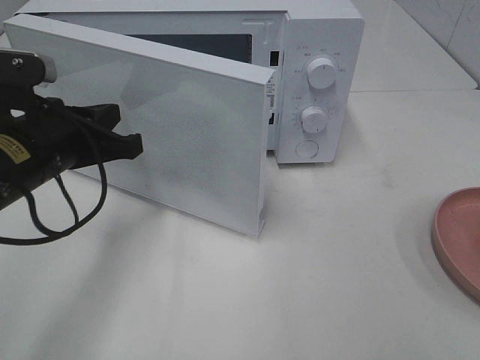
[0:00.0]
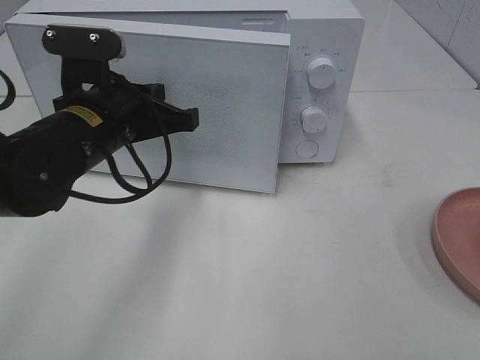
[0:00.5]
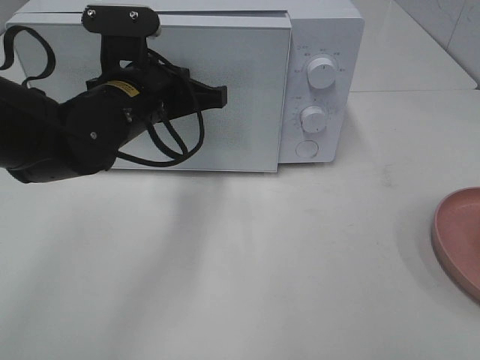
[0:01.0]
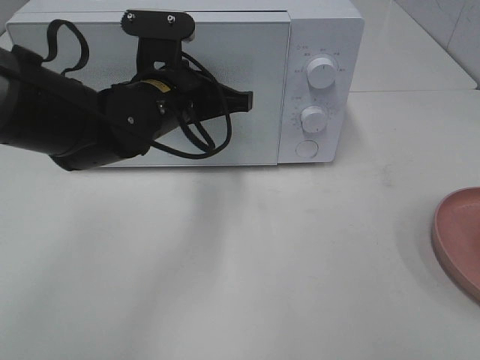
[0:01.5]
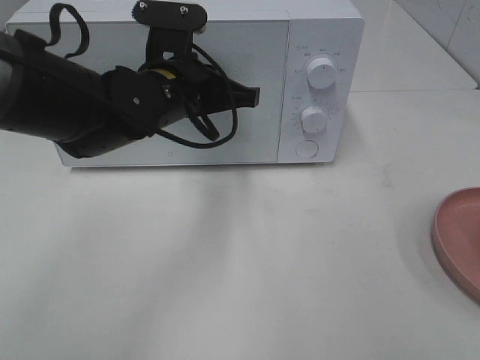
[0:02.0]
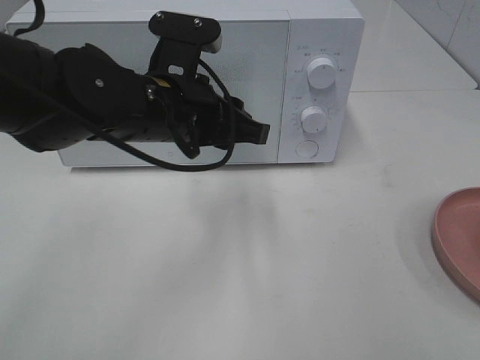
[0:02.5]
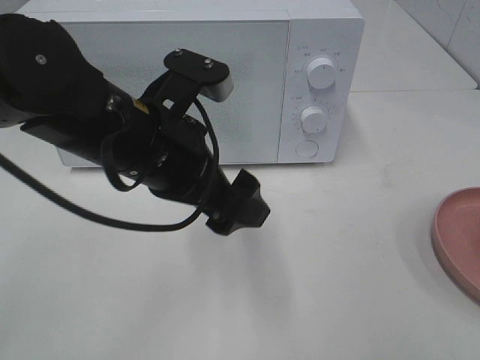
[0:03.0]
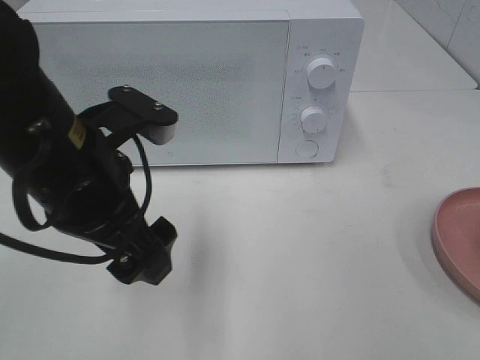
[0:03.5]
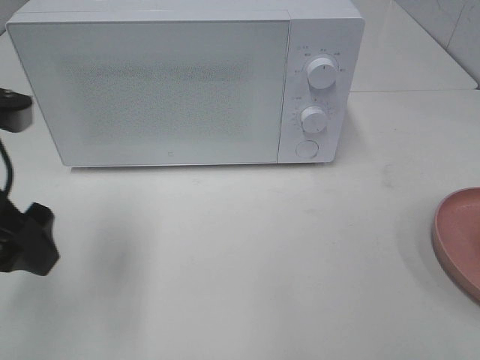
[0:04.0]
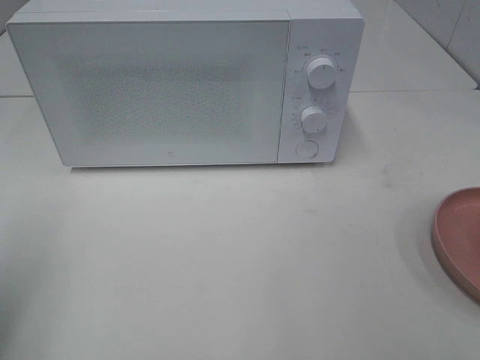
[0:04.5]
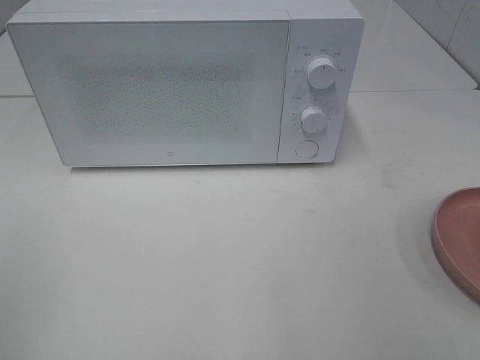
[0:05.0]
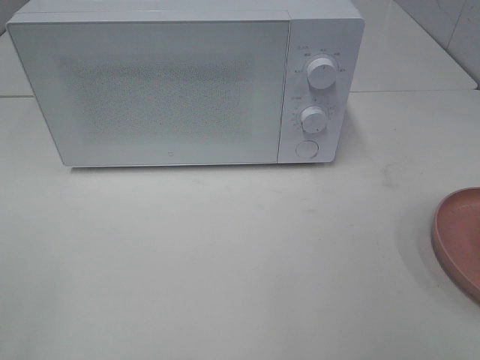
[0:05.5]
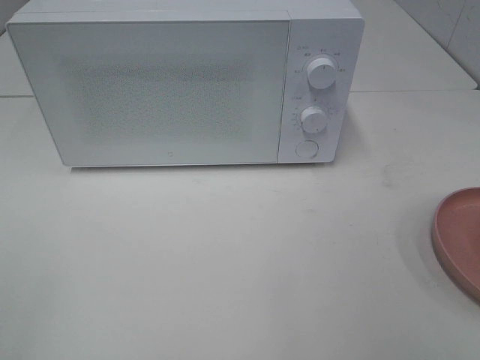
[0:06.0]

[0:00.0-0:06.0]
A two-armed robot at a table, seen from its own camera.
Task of the whole recording: Heat the burger.
Step, 0:00.0 to 0:02.5: Left hand: close the microwave door.
0:00.0 to 0:02.0: The left gripper travels to the right and forward by some 15 cm.
0:02.0 to 0:04.0: The left gripper shifts approximately 20 cm to the left and backward, and opens.
0:04.0 to 0:06.0: The left gripper goes roughly 25 cm backward and to the left.

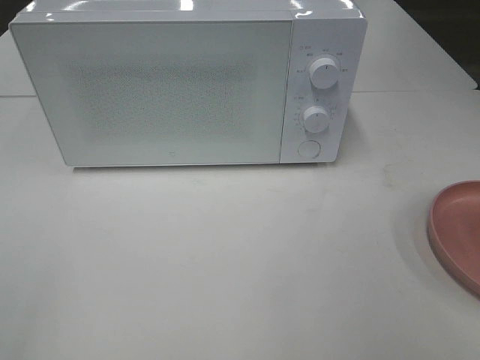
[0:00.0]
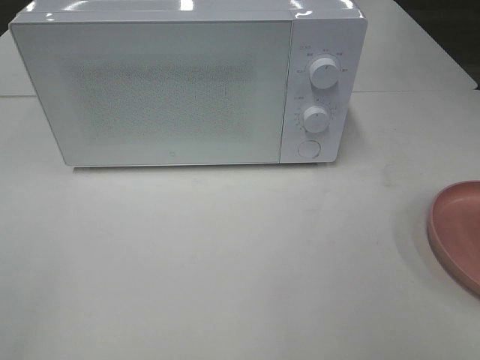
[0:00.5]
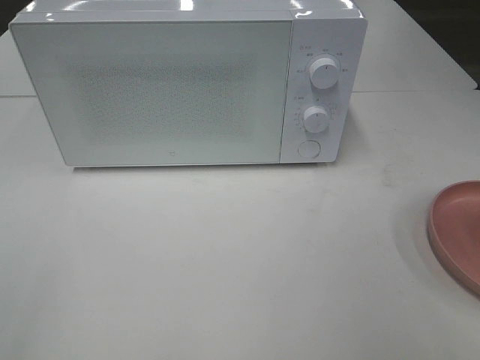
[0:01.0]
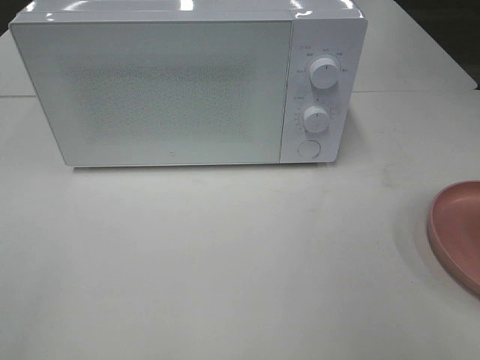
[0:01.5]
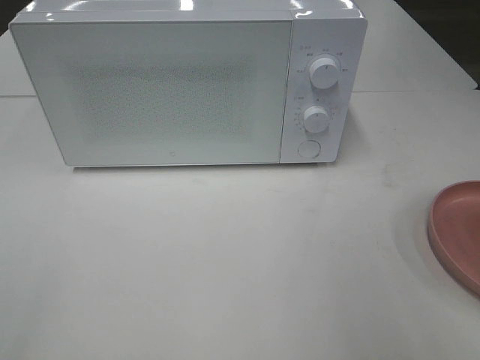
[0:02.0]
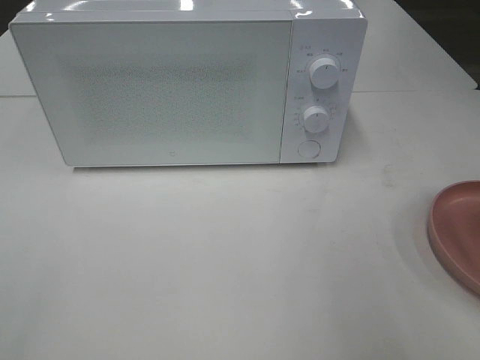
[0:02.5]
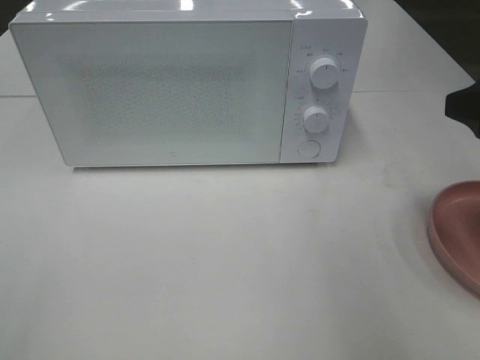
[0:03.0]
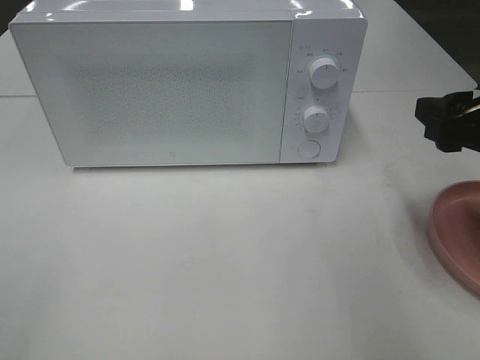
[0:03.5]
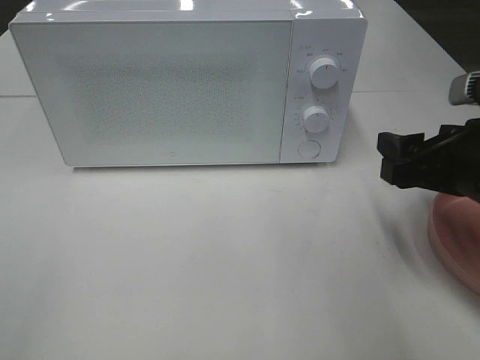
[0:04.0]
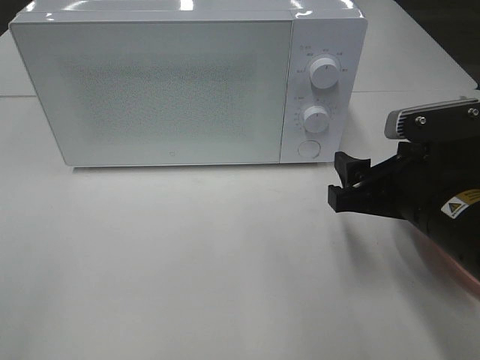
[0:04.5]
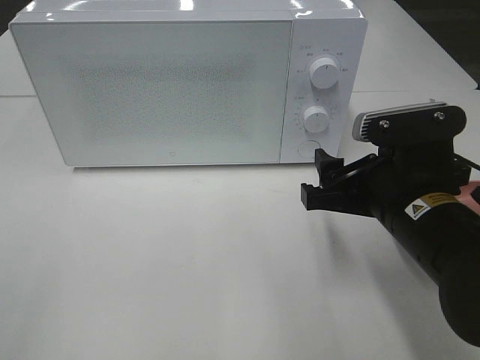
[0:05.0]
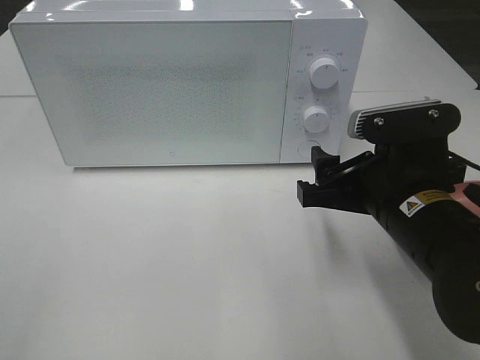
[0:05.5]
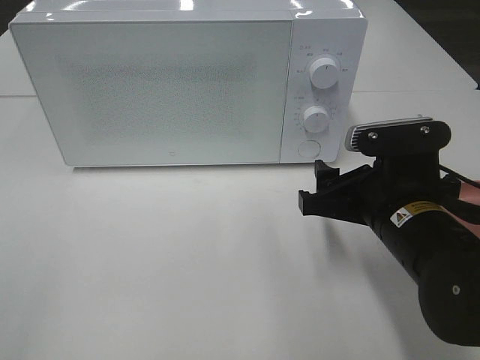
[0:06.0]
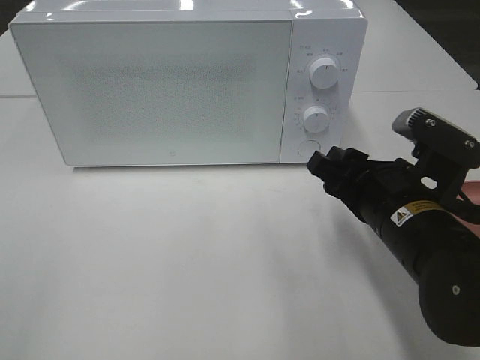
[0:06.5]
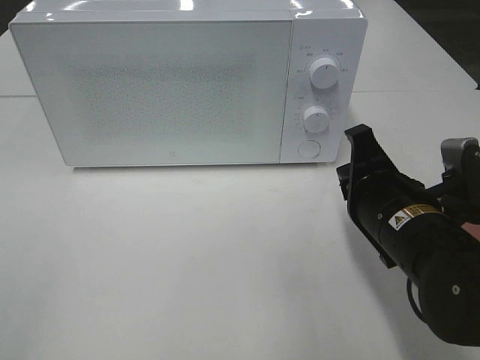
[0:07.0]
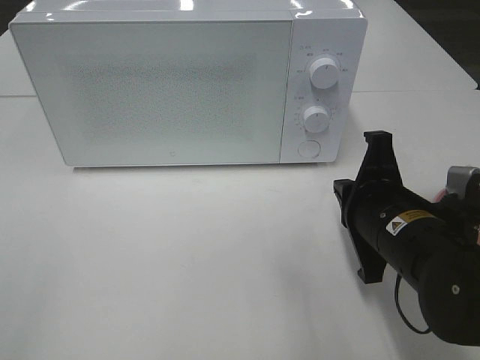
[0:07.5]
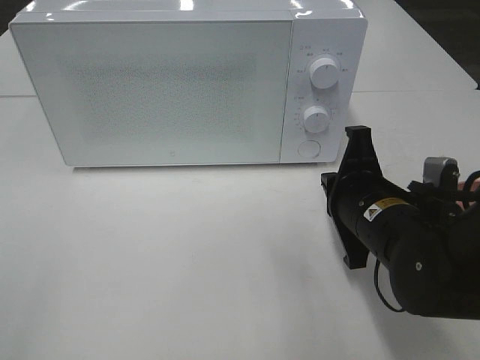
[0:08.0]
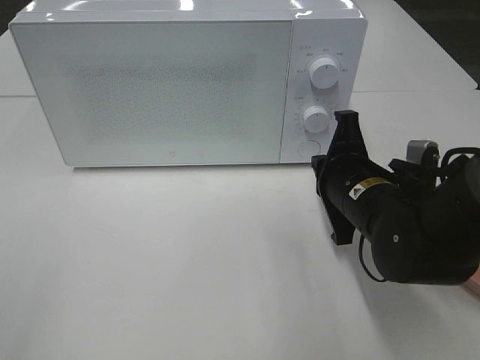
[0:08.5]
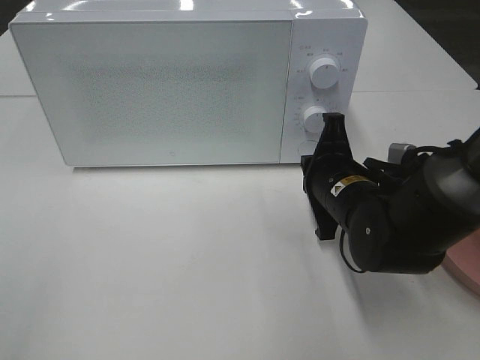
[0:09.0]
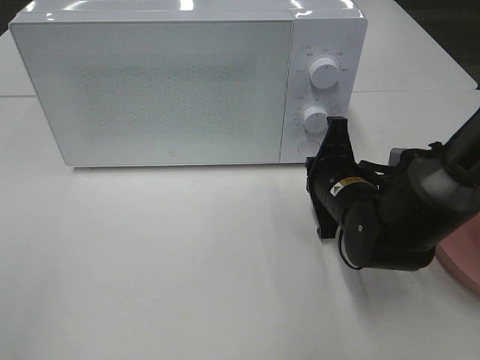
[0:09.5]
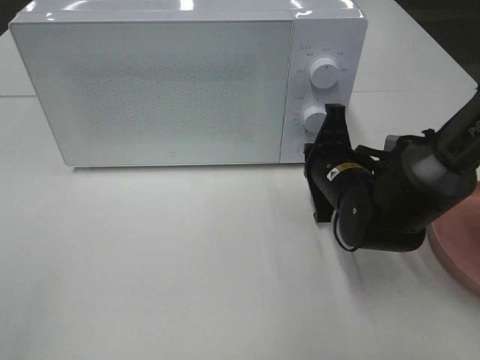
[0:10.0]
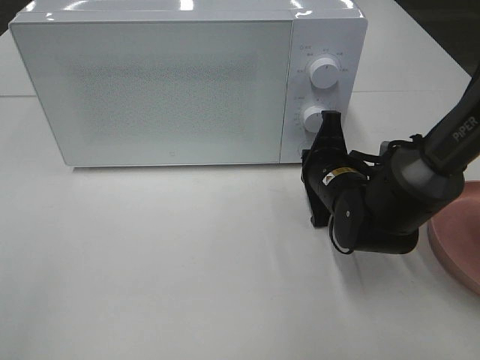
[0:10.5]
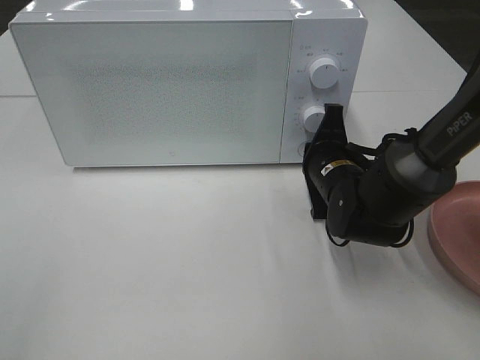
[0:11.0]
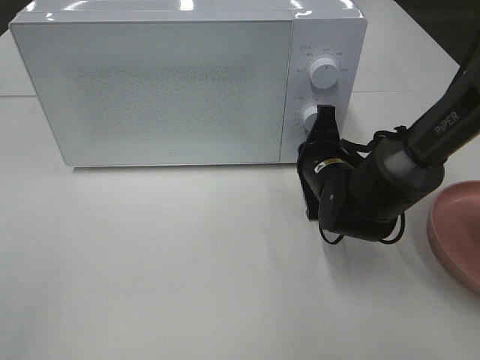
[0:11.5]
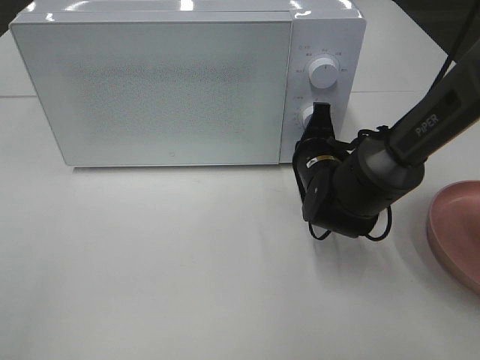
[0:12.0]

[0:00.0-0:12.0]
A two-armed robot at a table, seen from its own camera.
Task of the whole recording: Heat the burger.
0:02.0 to 0:04.0: The right gripper moves downward and forward, some 15 cm.
0:04.0 to 0:06.0: The right gripper travels to the left by about 5 cm.
0:06.0 to 0:08.0: The right gripper closes its fingers.
0:08.0 to 0:10.0: The right gripper shifts approximately 10 cm forward.
0:10.0 to 0:12.0: The grippers stay close to where they were, moving slightly.

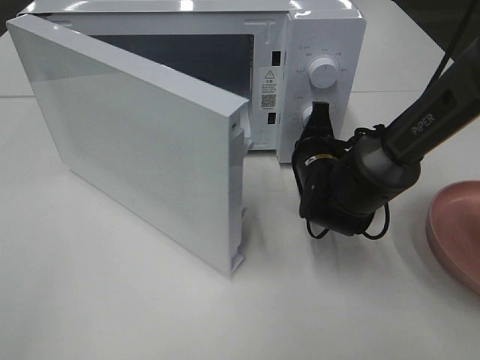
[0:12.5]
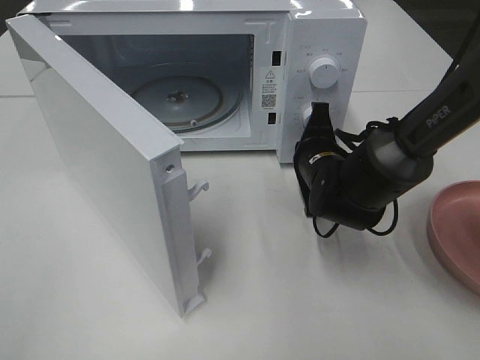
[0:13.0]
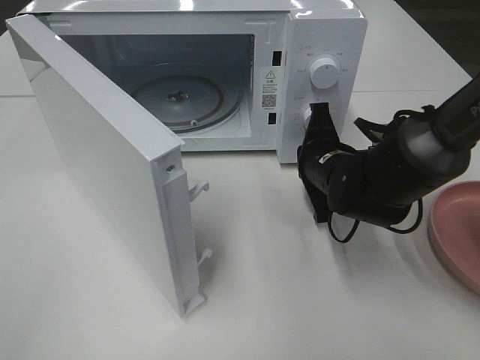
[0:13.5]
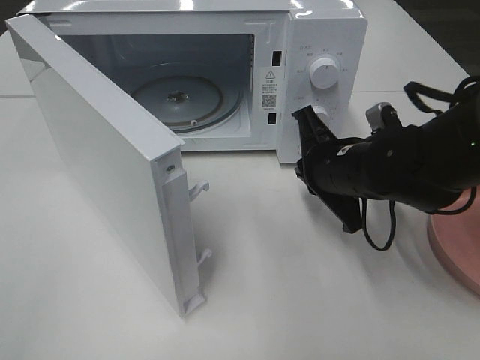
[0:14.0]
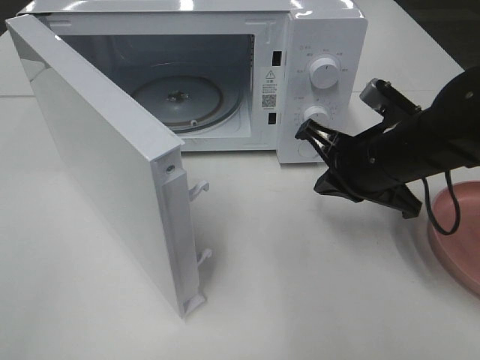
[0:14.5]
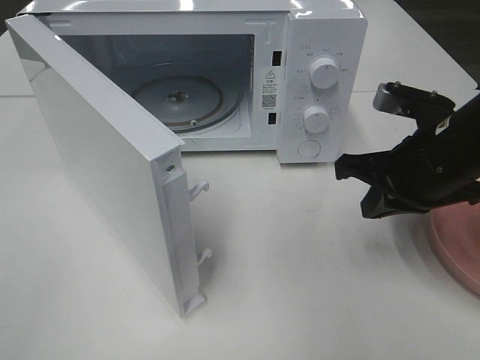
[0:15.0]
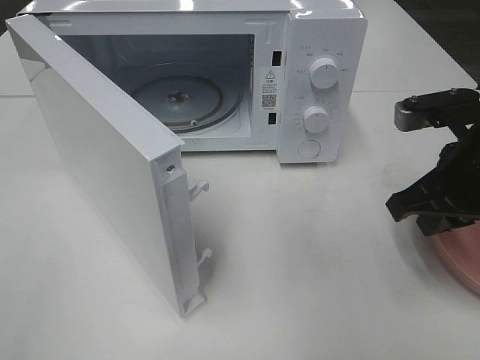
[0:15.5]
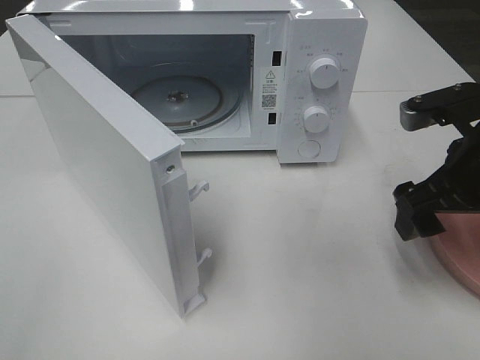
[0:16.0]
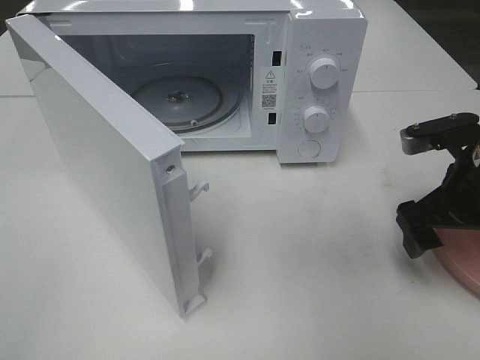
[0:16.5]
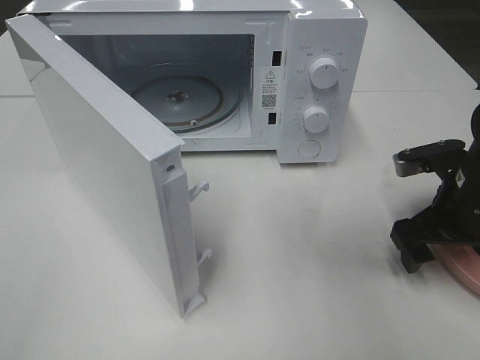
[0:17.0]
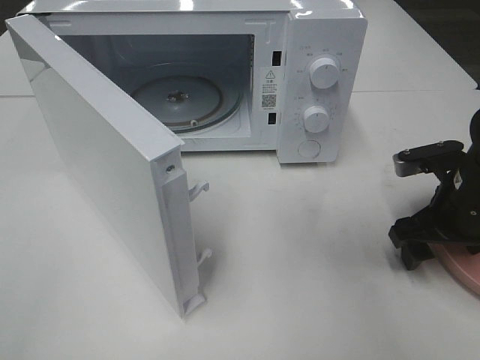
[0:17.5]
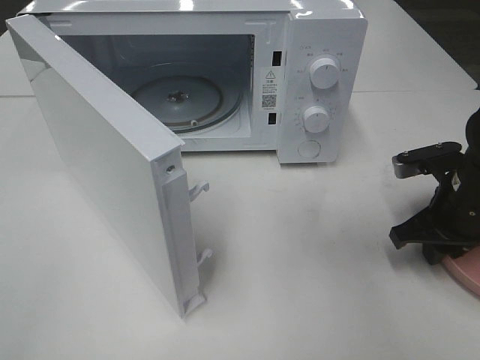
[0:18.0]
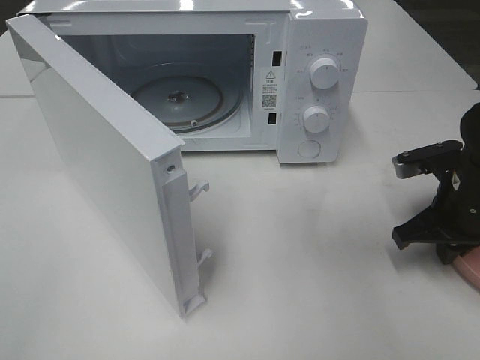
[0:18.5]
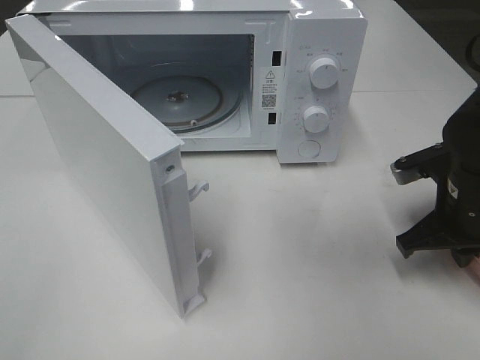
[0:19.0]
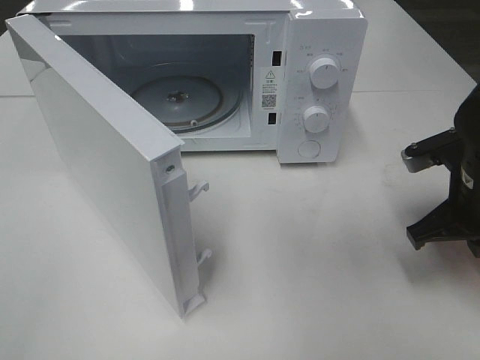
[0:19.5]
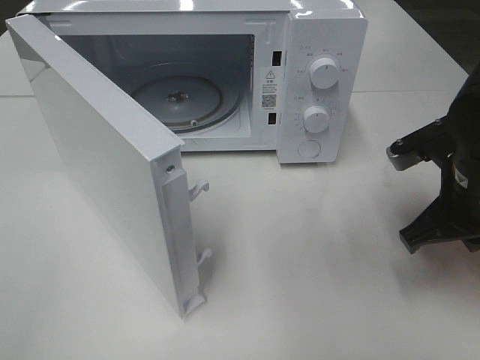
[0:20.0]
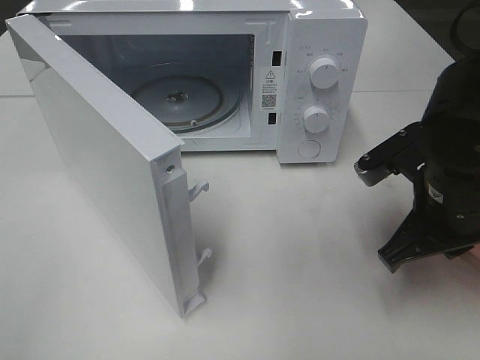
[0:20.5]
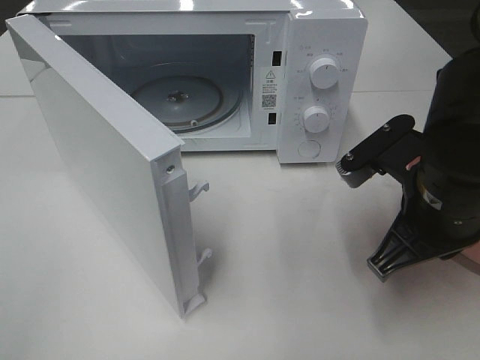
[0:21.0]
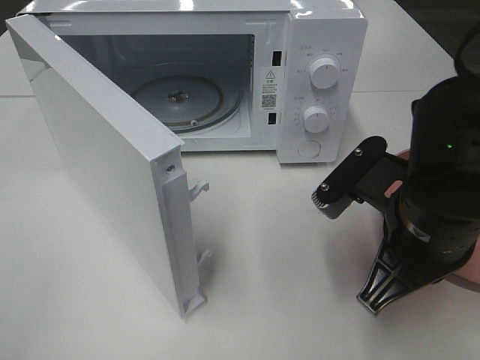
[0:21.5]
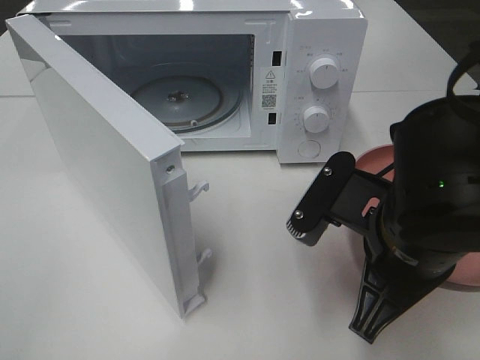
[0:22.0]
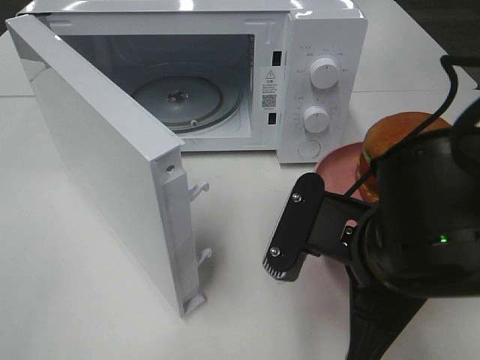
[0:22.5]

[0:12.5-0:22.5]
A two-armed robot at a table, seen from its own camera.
Task of the whole recording: Heat the burger.
Step, 0:13.5 to 0:18.5: Right hand: grab the plate with the hamburger.
0:12.5 to 0:14.5: The right gripper moves upward and backward, approximately 10 cm.
0:14.5 to 0:16.5: The right gripper travels to the right by some 10 cm, and opens.
0:16.5 to 0:18.5: The right gripper moves downward, some 5 cm, and closes its fingers.
0:18.5 to 0:20.5: The right gripper heads to the left, upward and backward, covering about 10 cm.
0:20.5 to 0:22.5: The right gripper is displaced to the left and backward by roughly 10 cm.
